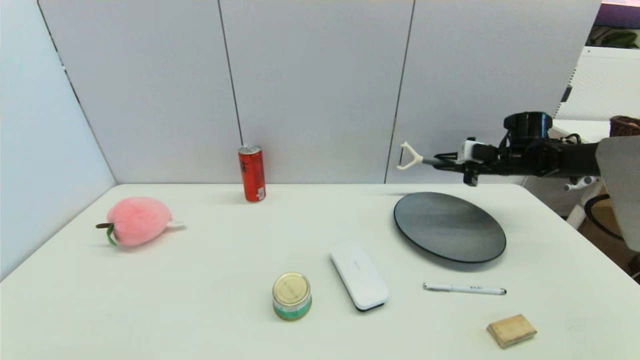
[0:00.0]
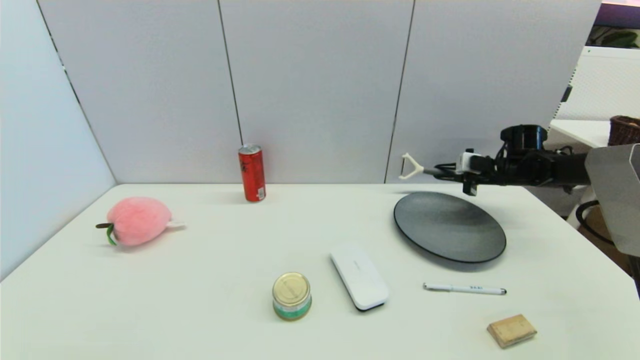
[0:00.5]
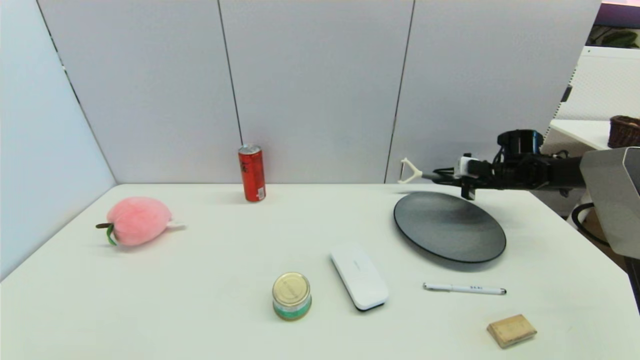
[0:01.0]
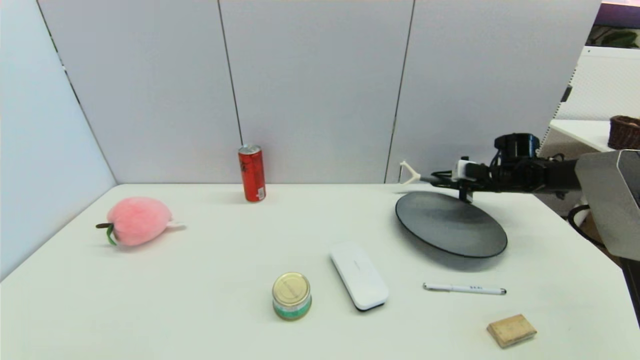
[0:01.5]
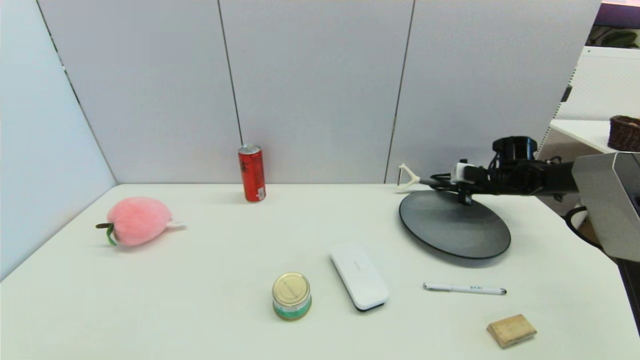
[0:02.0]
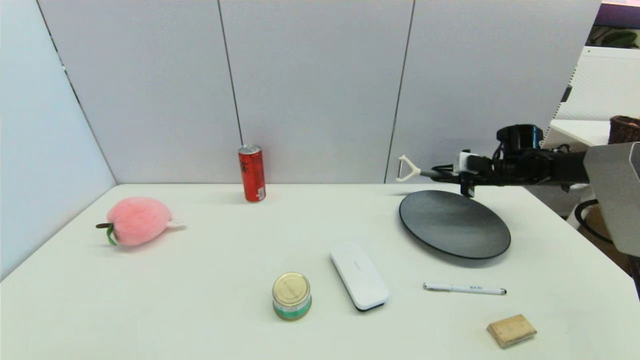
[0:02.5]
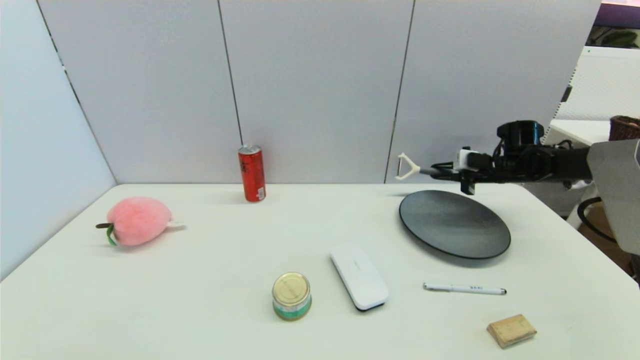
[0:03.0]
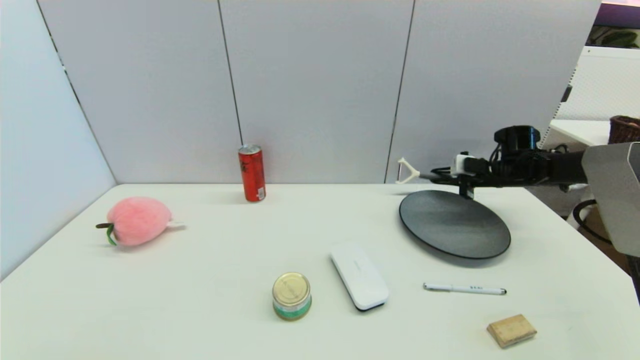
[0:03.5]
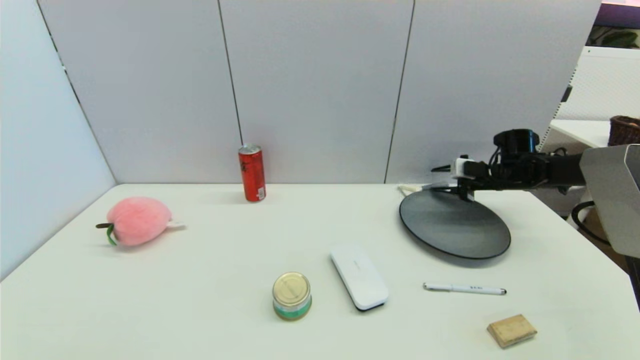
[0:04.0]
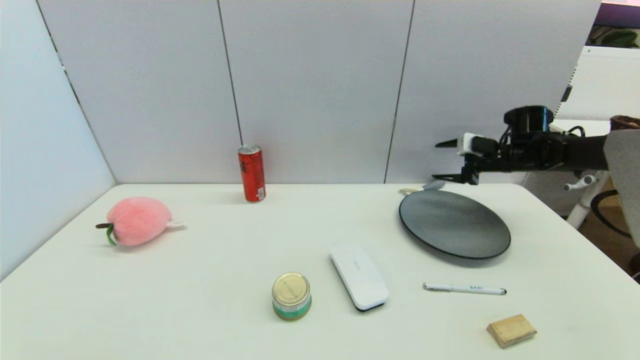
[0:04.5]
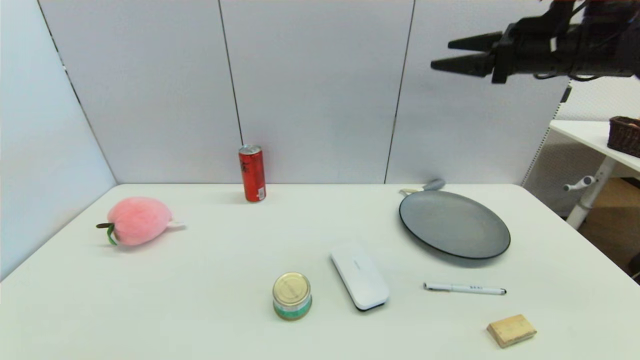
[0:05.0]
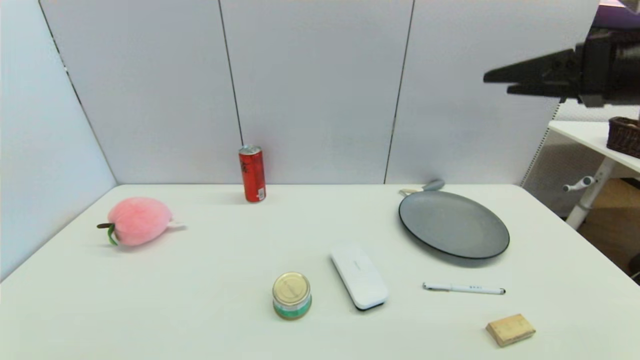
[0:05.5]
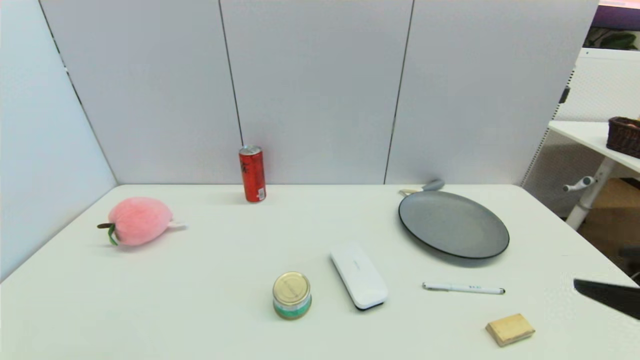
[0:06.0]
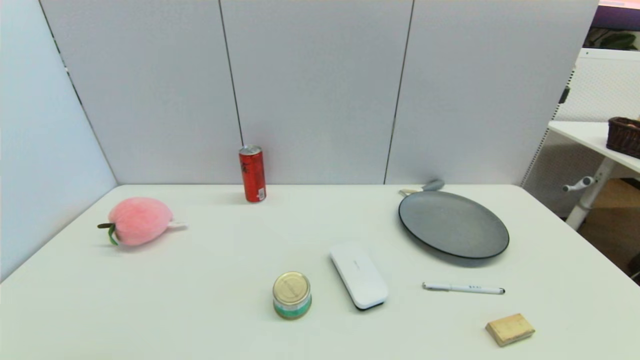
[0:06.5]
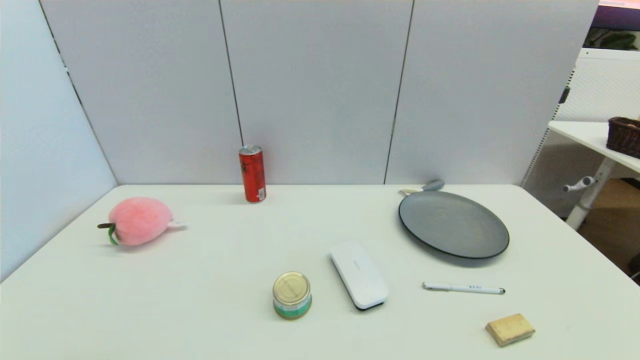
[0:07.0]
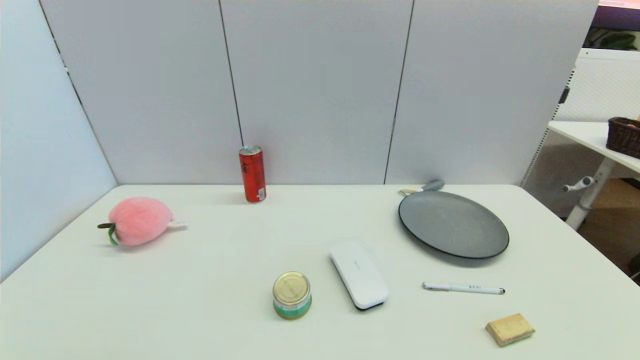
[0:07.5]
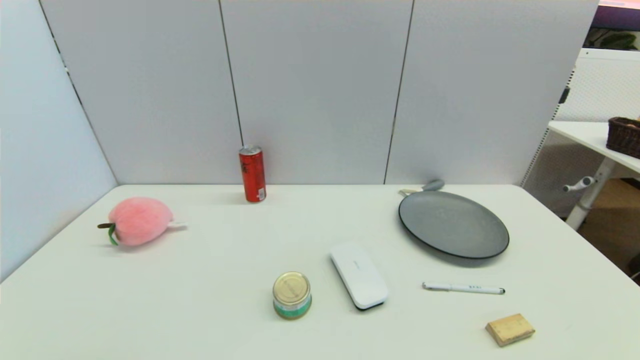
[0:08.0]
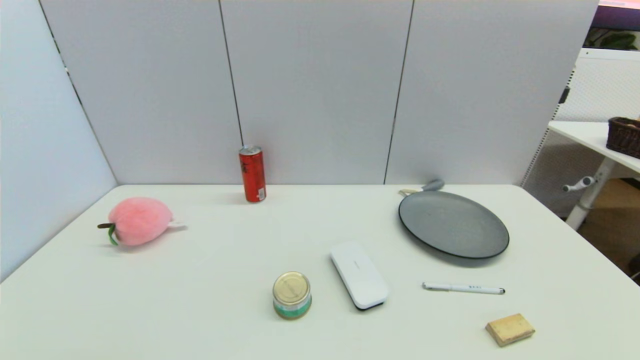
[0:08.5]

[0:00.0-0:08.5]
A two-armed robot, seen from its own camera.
Step, 0:00.0 to 0:04.0: Place the peeler on the table with right gripper.
0:00.0 to 0:02.0: The right gripper goes about 5 cm downward.
0:02.0 to 0:04.0: The right gripper opens its fingers.
0:04.0 to 0:06.5: The right gripper is displaced backward by some 50 cm, and opens up.
